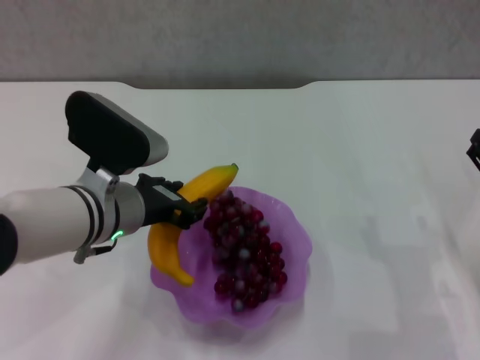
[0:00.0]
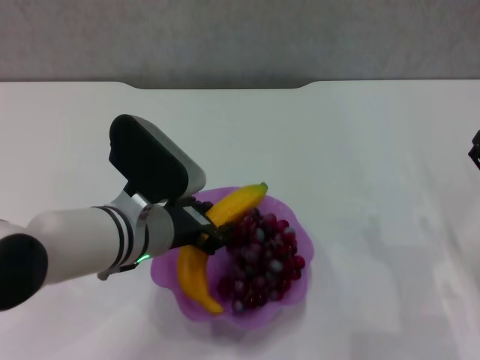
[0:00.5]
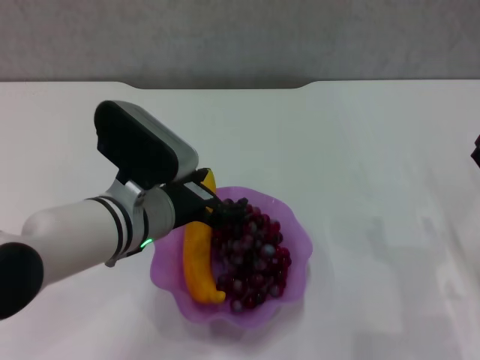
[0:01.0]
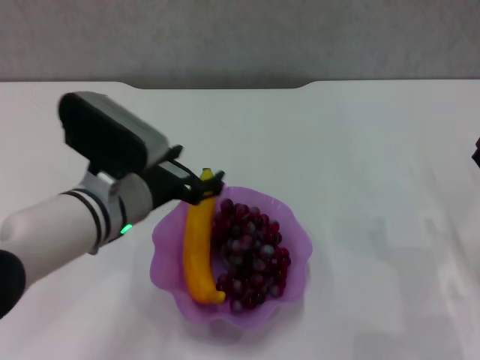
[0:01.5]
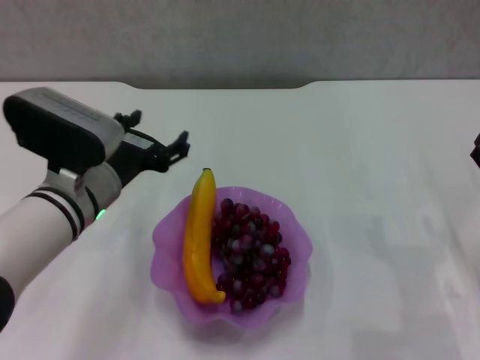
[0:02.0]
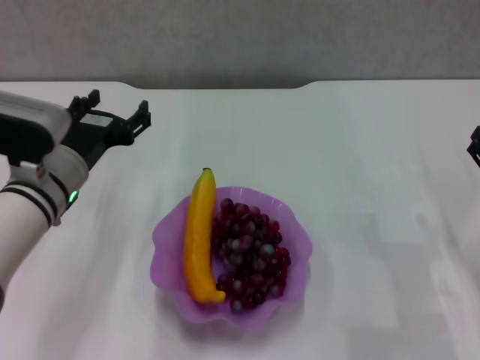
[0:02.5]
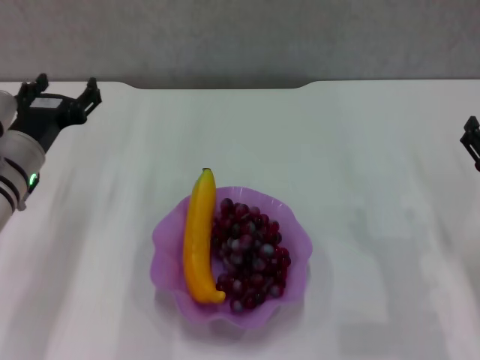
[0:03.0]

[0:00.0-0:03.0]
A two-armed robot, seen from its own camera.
0:00.0 to 0:01.5: The left gripper opens its fingers.
0:01.5 to 0:03.0: The left gripper goes approximately 10 cm to the left and forward.

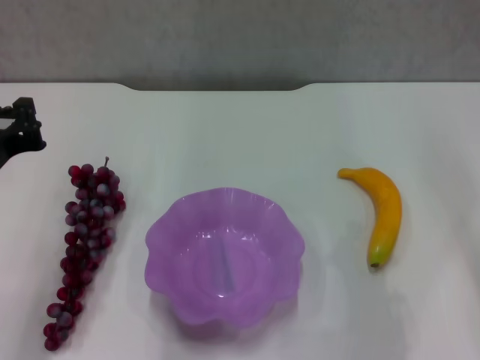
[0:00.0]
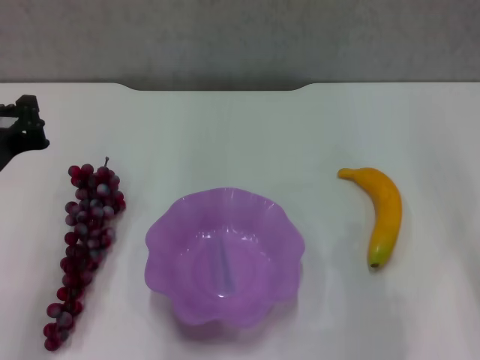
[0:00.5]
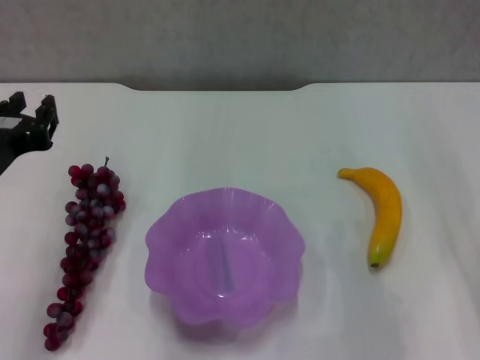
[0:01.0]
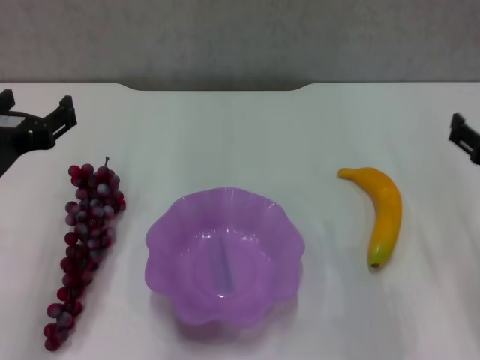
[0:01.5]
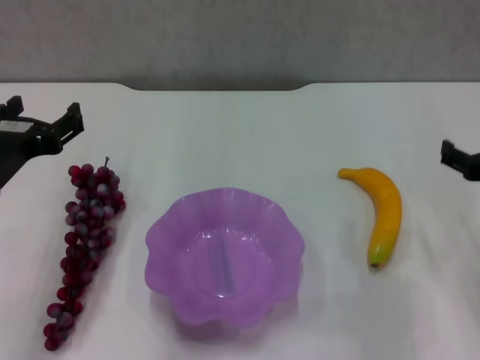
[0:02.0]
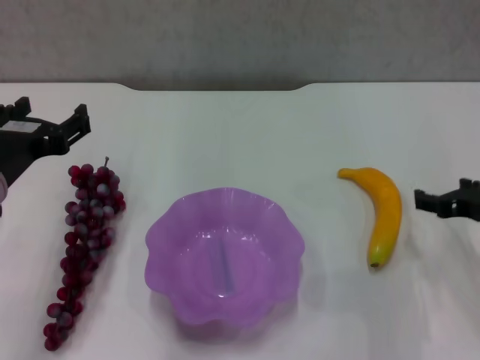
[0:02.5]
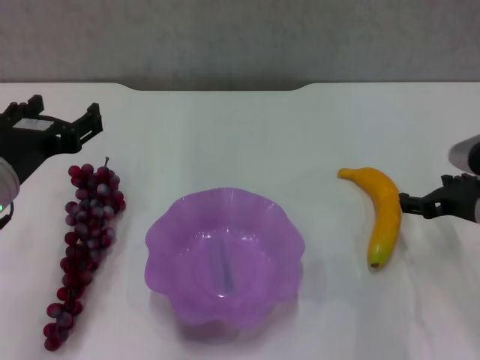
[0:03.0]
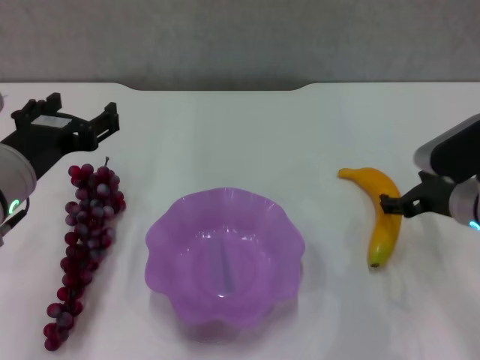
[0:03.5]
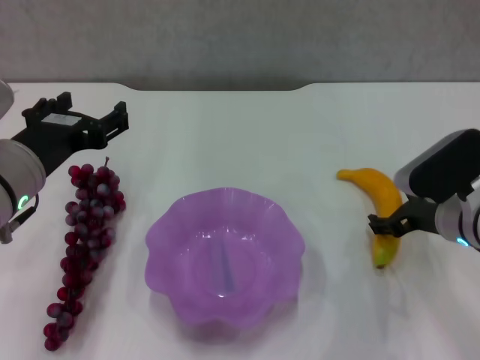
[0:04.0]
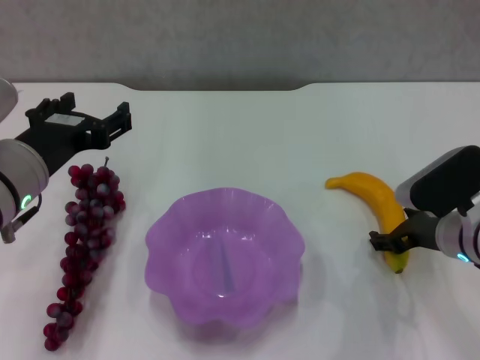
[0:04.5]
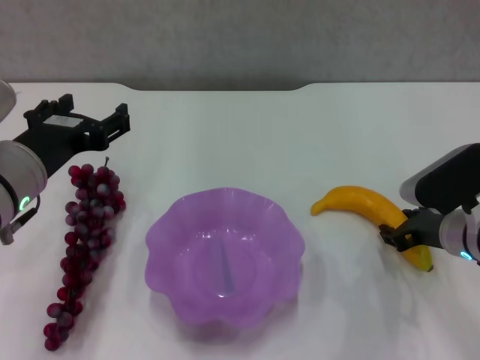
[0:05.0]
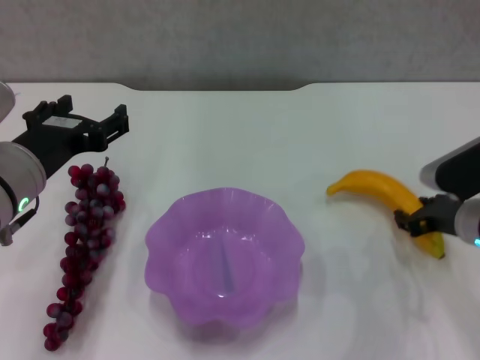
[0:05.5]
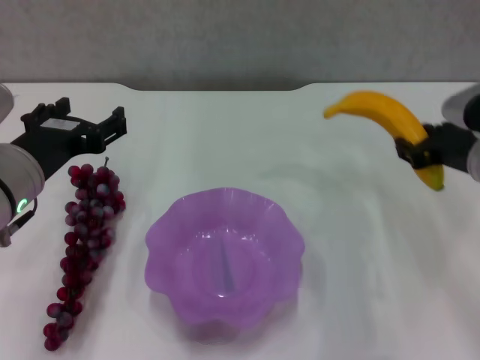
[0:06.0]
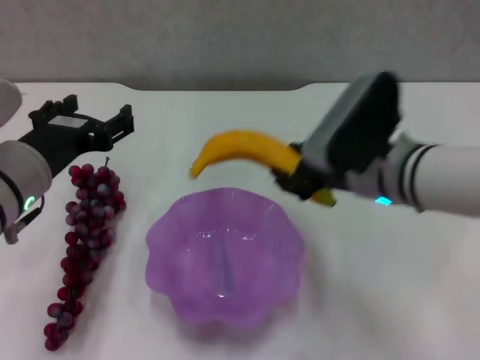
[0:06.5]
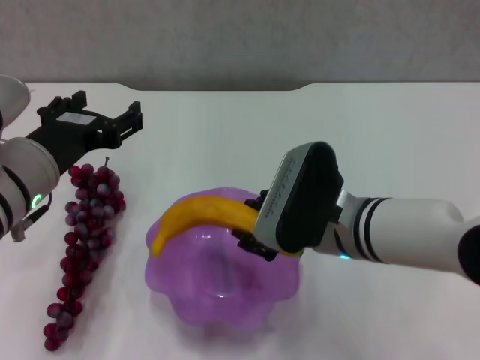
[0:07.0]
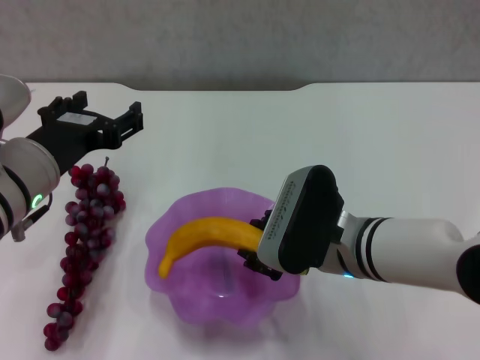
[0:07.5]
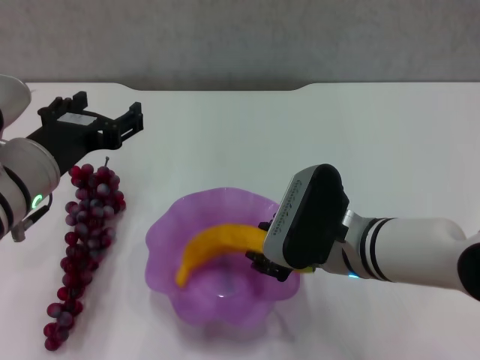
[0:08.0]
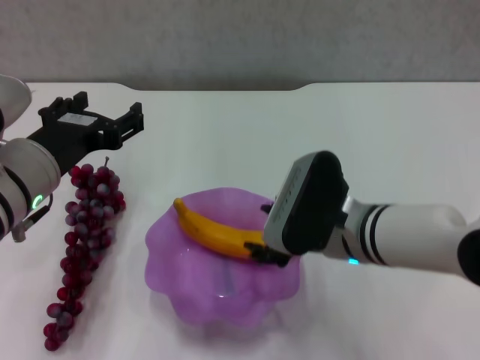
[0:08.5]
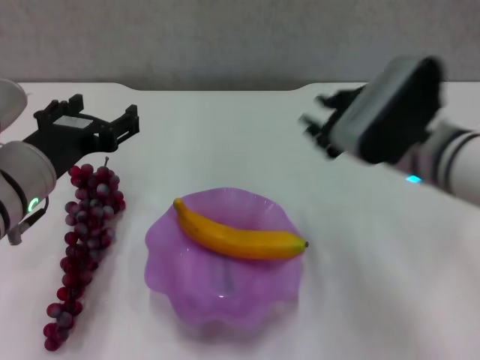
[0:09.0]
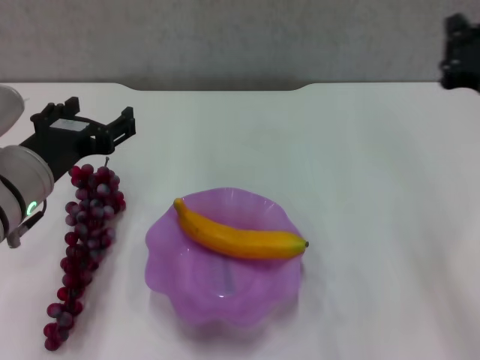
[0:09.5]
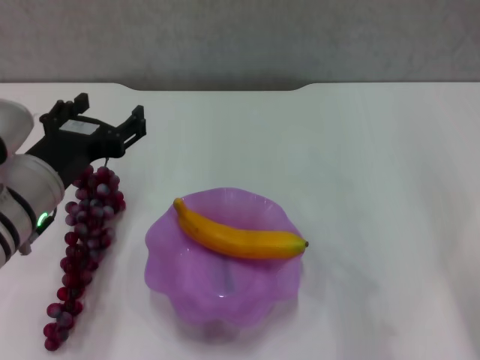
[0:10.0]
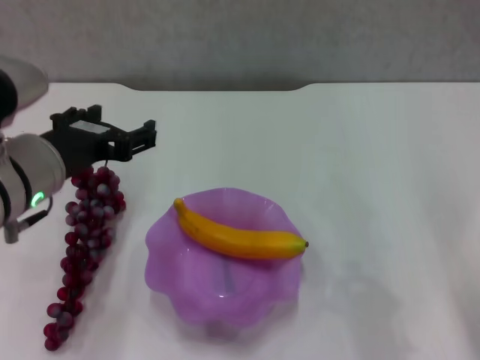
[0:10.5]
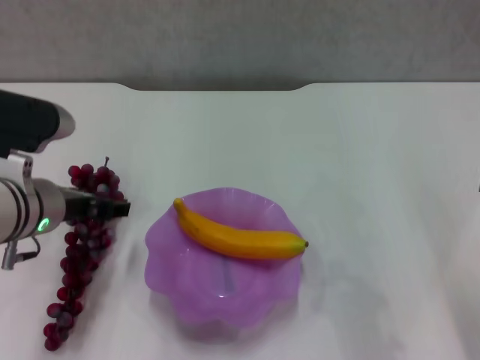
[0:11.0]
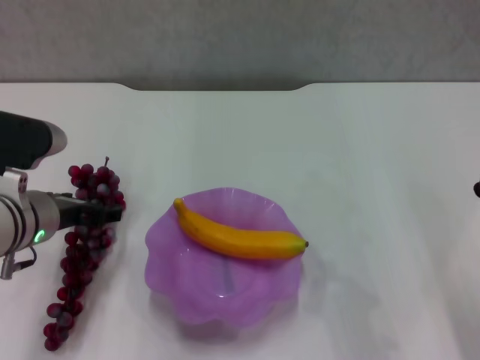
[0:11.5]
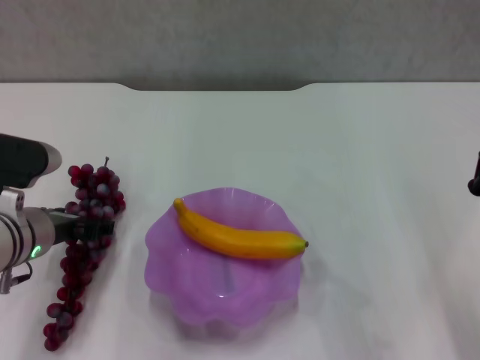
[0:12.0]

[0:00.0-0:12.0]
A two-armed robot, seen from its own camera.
Step, 0:00.0 to 0:05.0: Grasp the banana with right gripper.
Step, 0:05.5 to 0:08.5: Place the banana in the purple plate with right gripper.
0:00.0 to 0:02.0: The right gripper opens, while the left gripper opens its fingers.
0:02.0 to 0:04.0: The right gripper is displaced downward, forward and to the left by roughly 10 cm.
0:04.0 to 0:06.0: The right gripper goes some 5 cm upward.
0:06.0 to 0:08.0: The right gripper shifts about 15 cm to the left.
0:08.0 to 0:10.0: The right gripper moves to the right and backward, some 15 cm, and closes up.
0:10.0 to 0:12.0: The left gripper heads downward, covering some 5 cm.

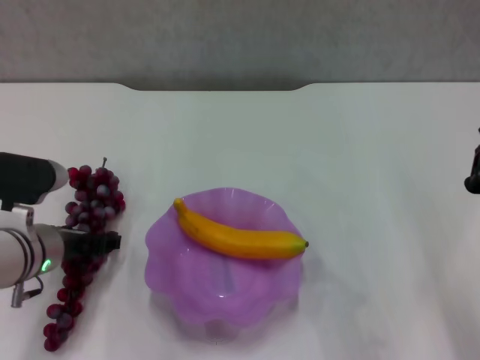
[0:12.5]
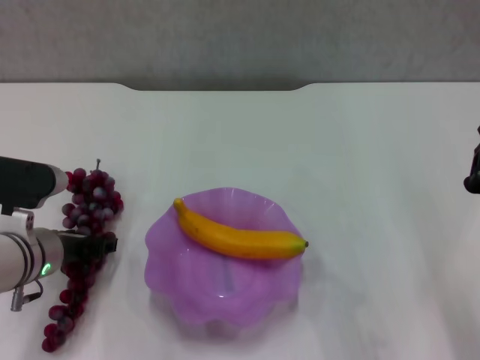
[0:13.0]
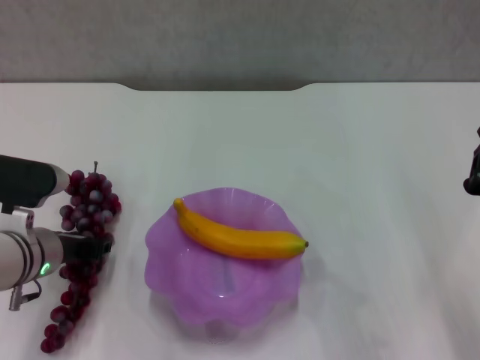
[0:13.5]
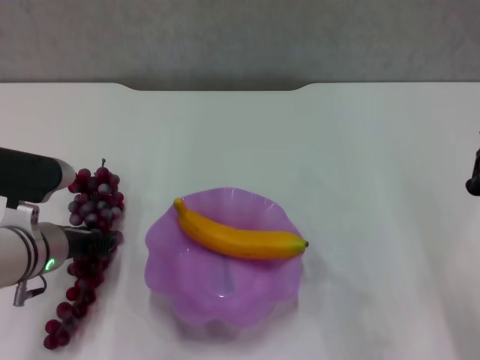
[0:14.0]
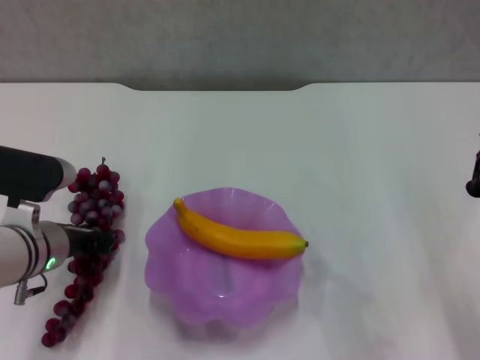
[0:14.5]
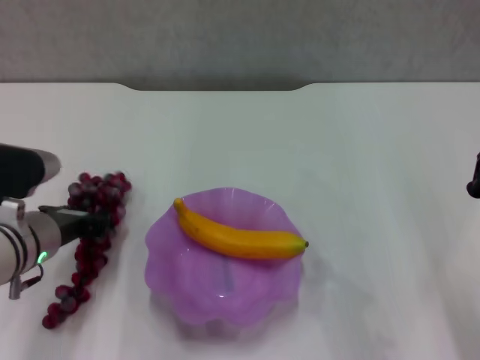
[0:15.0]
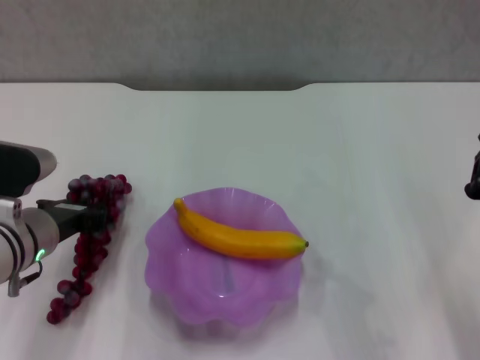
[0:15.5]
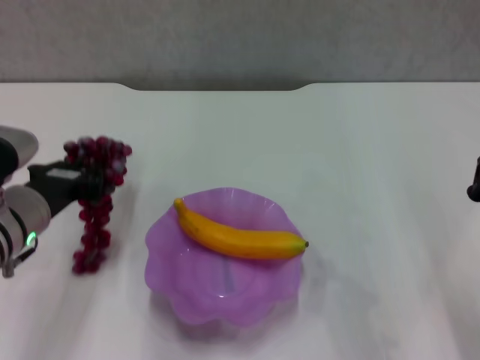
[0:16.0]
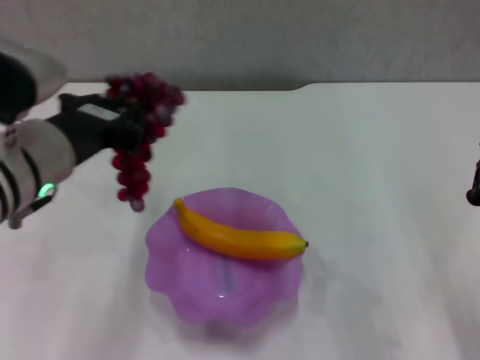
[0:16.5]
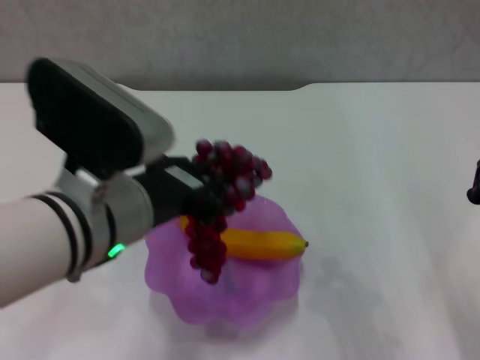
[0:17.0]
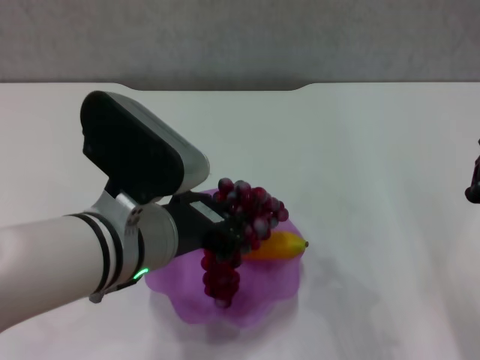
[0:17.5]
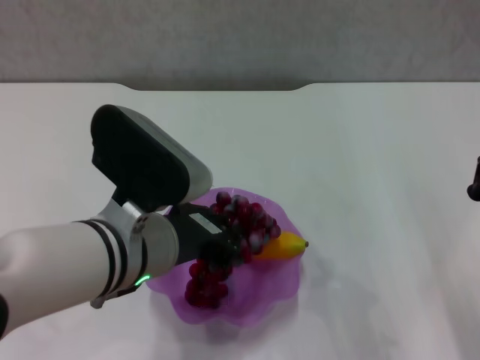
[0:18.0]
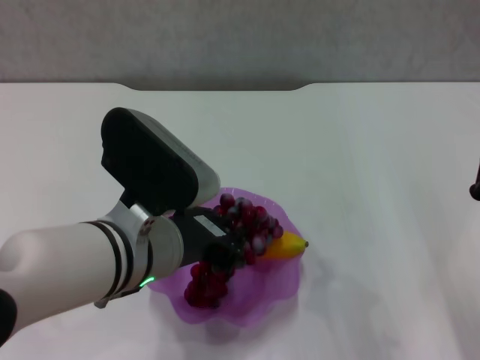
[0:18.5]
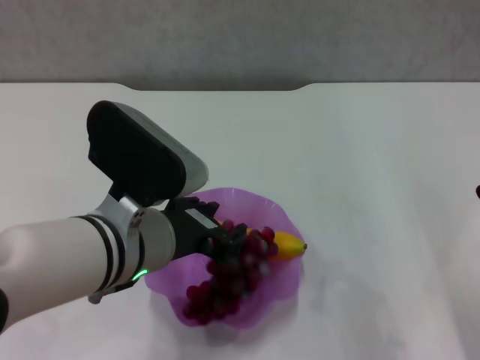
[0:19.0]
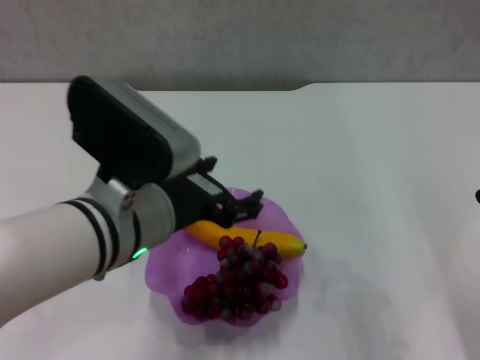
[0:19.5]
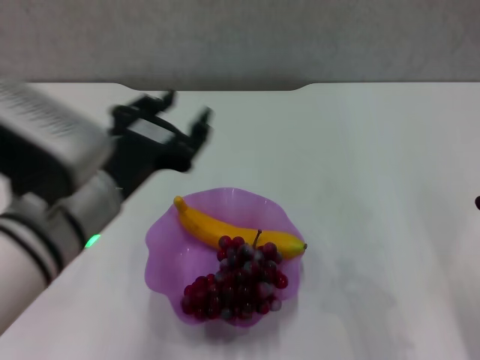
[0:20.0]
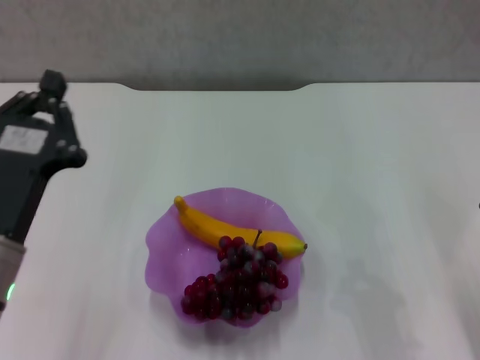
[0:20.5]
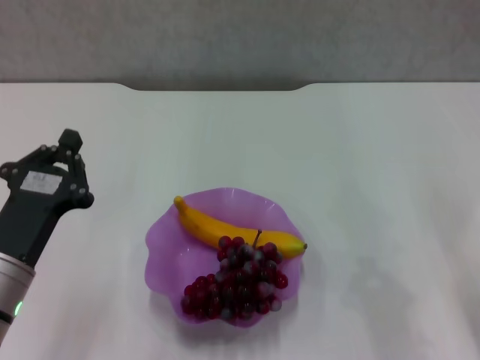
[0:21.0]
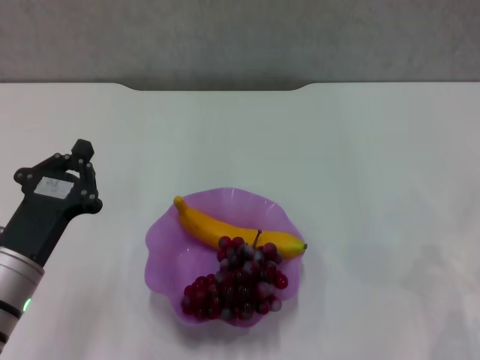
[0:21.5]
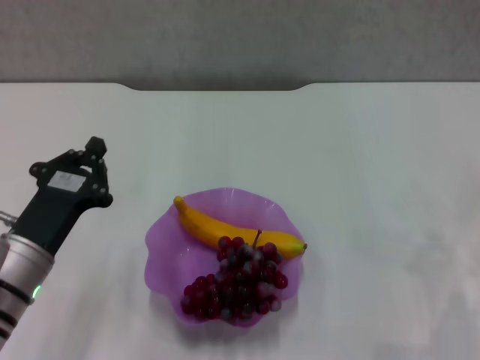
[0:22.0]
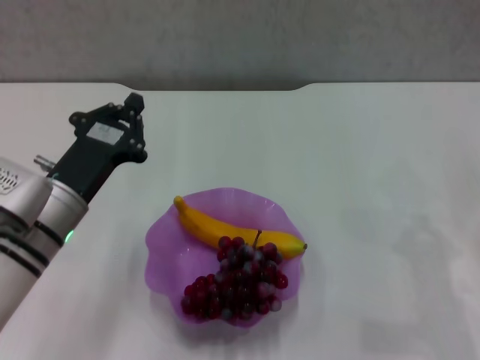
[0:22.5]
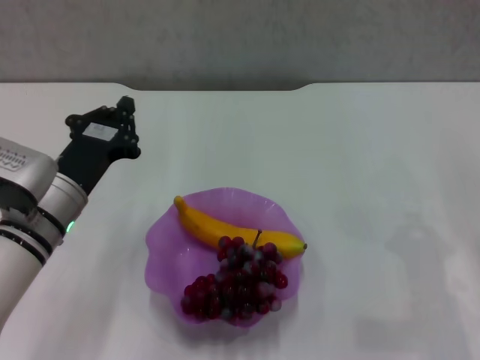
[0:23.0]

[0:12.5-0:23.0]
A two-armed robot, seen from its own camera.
Step, 0:12.5 to 0:14.5: Grasp the grape with left gripper.
Step, 0:15.0 to 0:19.0: Place the grape in the purple plate with left gripper.
0:12.5 to 0:14.5: The left gripper closes up.
0:14.5 to 0:16.5: The left gripper heads upward, covering approximately 15 cm.
0:16.5 to 0:19.0: The left gripper travels to the right by approximately 5 cm.
0:19.0 to 0:21.0: The left gripper travels to the left and downward by approximately 15 cm, and opens, then closes once more.
0:21.0 to 0:23.0: The grippers both shift forward by some 10 cm.
